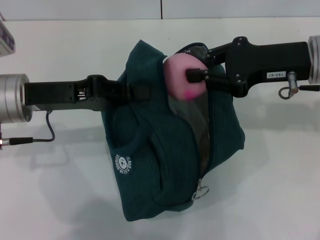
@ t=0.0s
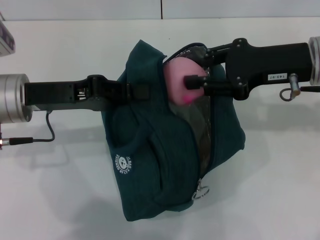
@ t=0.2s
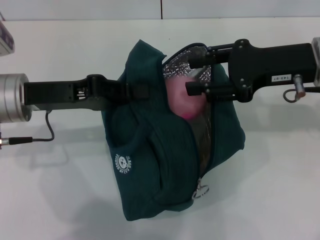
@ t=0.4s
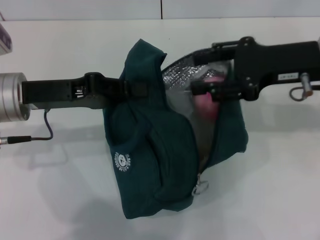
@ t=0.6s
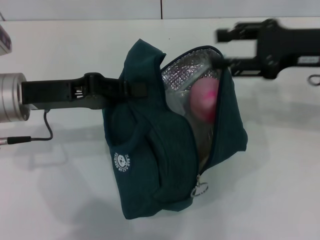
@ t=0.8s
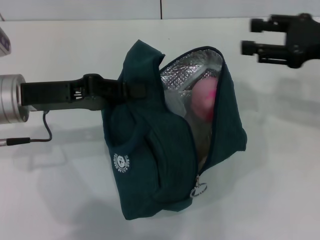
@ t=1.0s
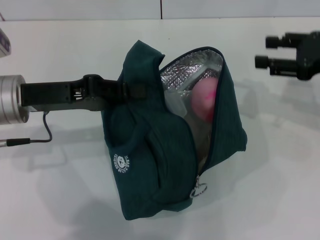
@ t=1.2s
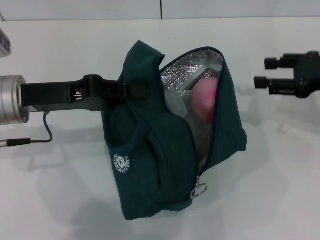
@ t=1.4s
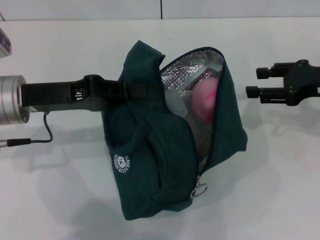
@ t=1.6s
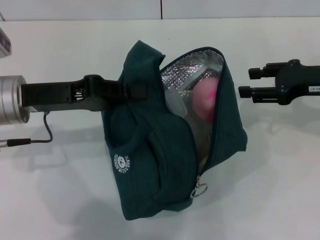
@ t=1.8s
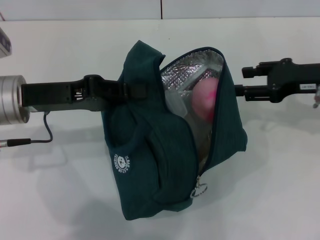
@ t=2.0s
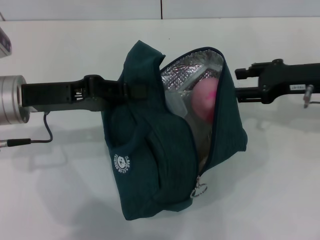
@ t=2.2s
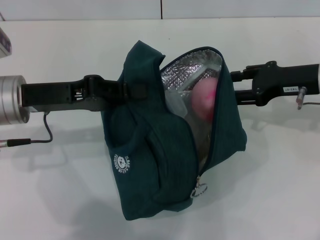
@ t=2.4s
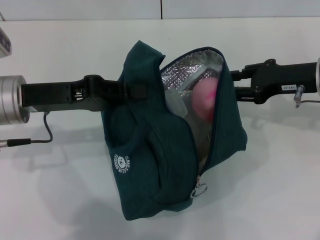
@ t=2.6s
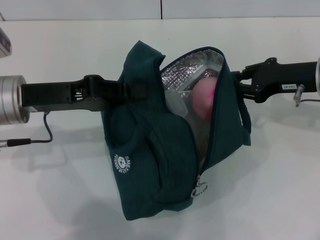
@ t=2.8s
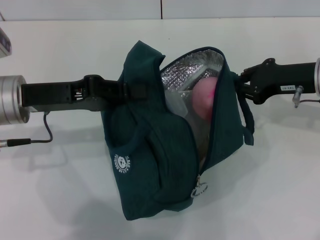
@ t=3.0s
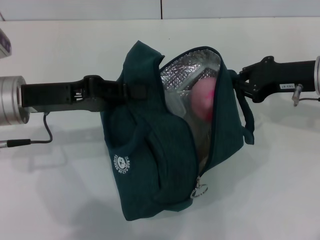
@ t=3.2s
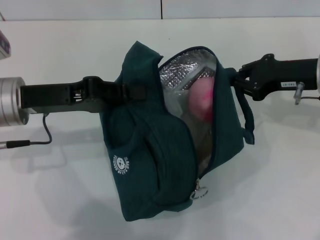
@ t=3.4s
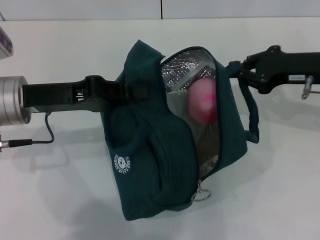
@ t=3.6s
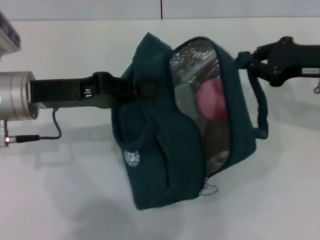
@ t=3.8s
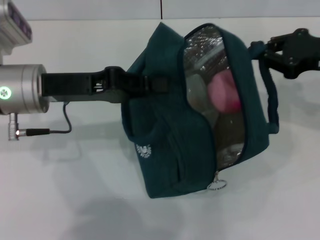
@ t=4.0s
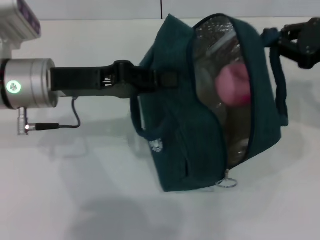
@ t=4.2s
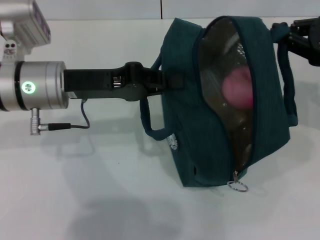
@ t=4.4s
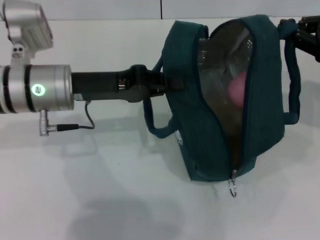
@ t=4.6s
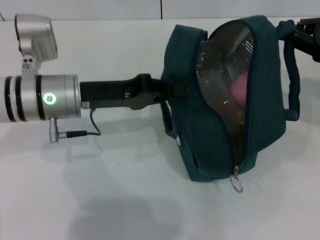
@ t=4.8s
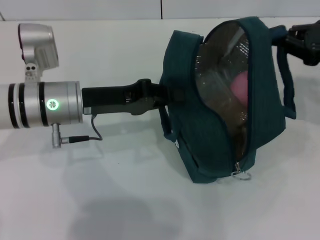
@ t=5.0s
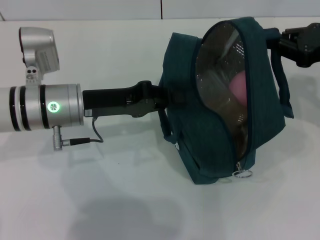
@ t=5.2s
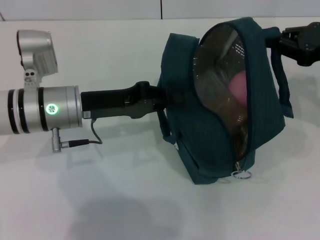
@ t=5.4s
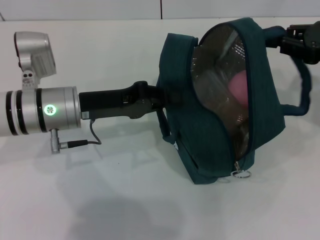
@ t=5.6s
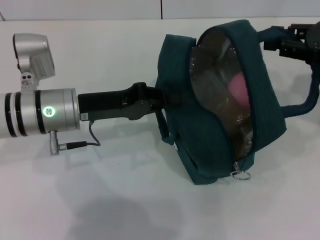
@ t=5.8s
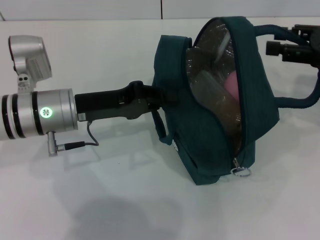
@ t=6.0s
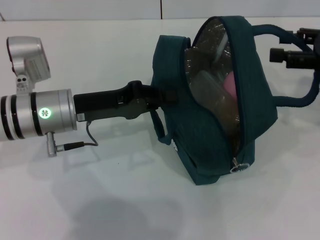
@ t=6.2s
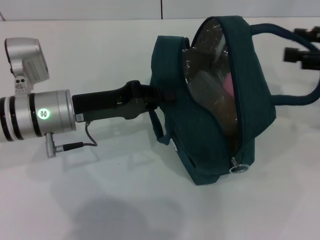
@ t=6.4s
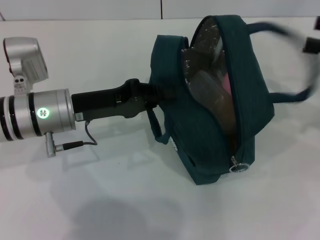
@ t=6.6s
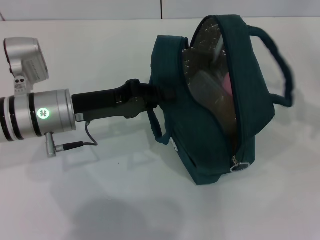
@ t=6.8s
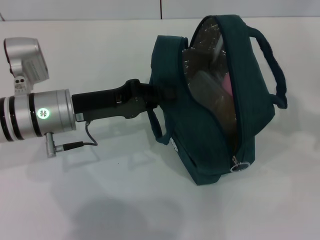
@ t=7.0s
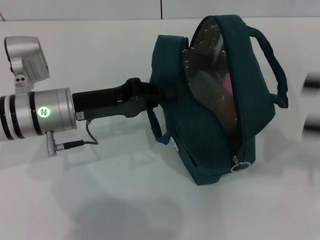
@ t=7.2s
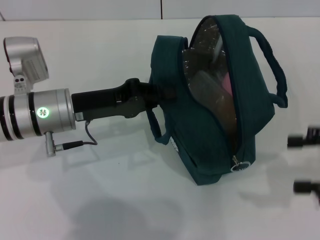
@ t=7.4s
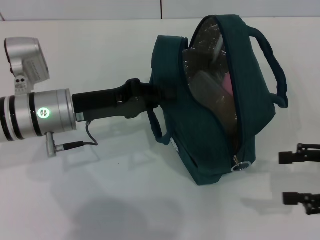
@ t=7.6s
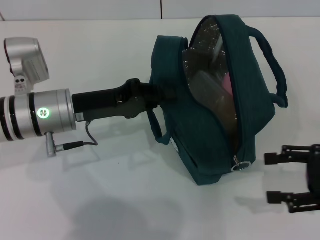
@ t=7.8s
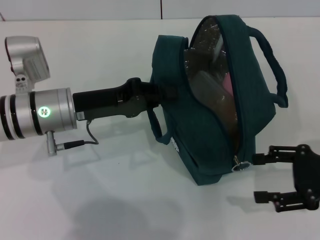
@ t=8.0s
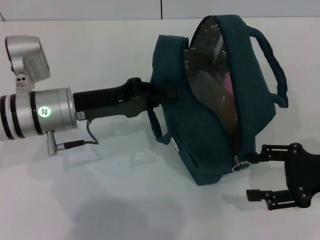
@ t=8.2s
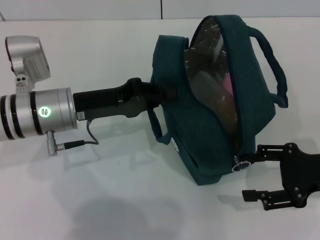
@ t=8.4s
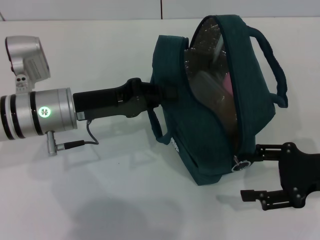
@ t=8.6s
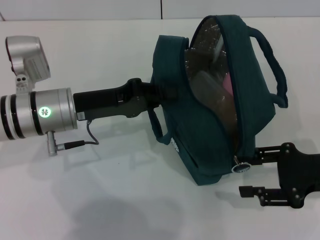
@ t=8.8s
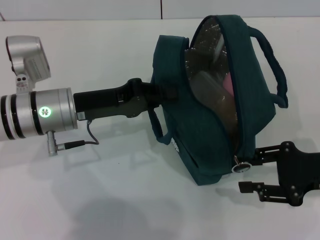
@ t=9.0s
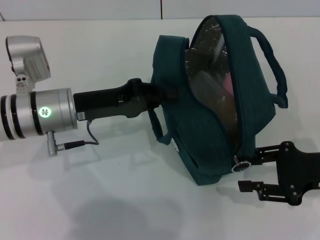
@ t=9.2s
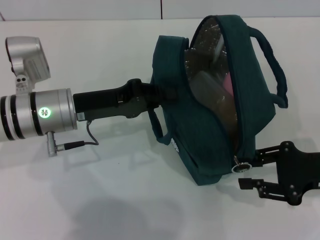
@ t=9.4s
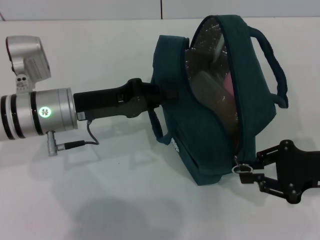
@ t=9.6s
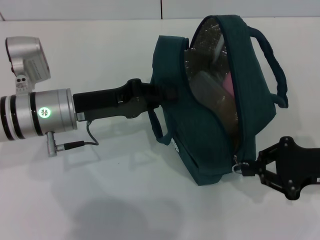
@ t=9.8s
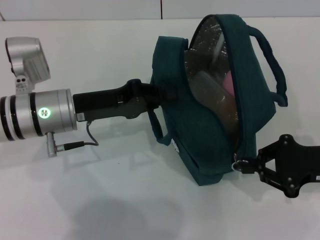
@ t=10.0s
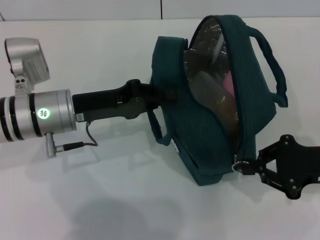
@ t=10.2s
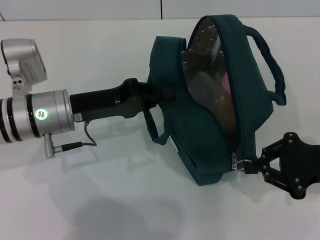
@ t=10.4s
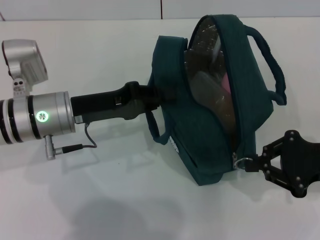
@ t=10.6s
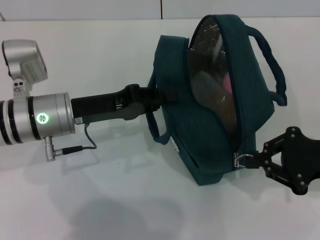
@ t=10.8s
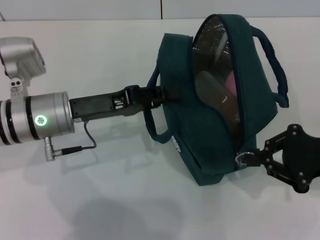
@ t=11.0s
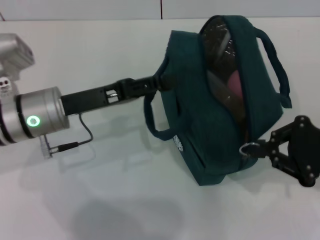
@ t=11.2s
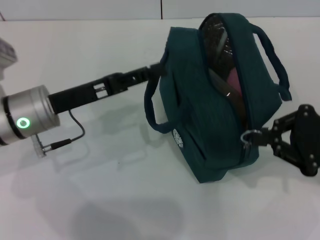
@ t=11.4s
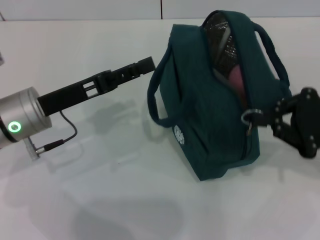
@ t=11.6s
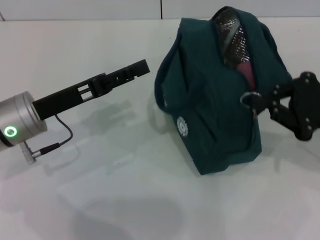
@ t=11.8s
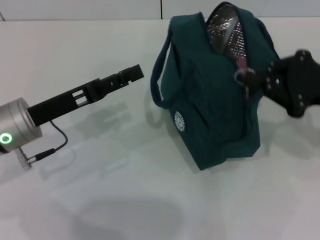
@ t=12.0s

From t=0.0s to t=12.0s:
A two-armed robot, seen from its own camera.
Step, from t=0.8s to t=6.4s: Hold the lunch bag with your right hand.
From t=0.0s to t=1.6s: The right gripper moves to the right, approximately 10 cm, and opens up.
From t=1.6s to t=3.0s: The right gripper ends up roughly 5 cm from where it was, and closes up.
From t=3.0s to t=4.4s: The right gripper goes roughly 10 cm to the right and upward, while the left gripper shifts by some 5 cm.
From t=6.0s to t=7.6s: The right gripper heads backward and downward, covering roughly 15 cm, and opens its fingers.
From t=7.6s to t=9.0s: The right gripper changes place by some 5 cm.
From t=9.0s to t=10.4s: The right gripper closes its fingers.
From t=10.4s to t=12.0s: The left gripper ends up some 5 cm from where it was, and opens, while the right gripper shifts some 5 cm upward.

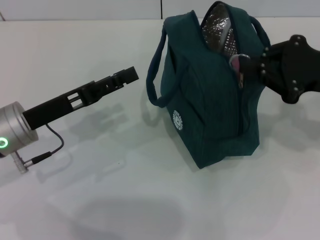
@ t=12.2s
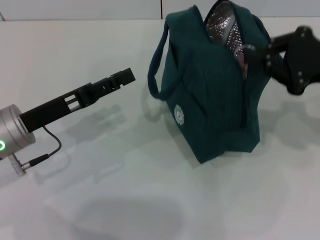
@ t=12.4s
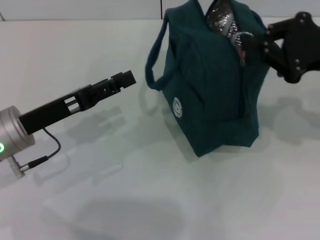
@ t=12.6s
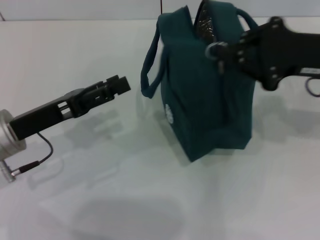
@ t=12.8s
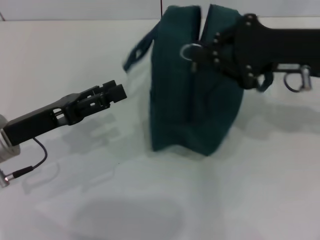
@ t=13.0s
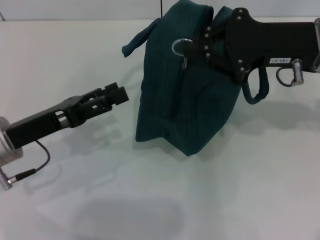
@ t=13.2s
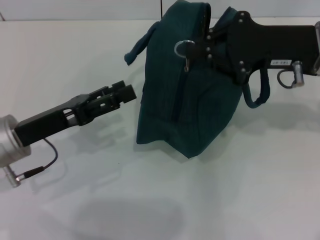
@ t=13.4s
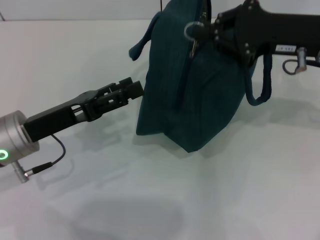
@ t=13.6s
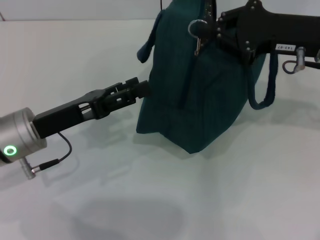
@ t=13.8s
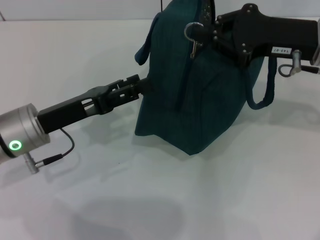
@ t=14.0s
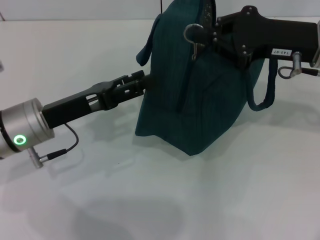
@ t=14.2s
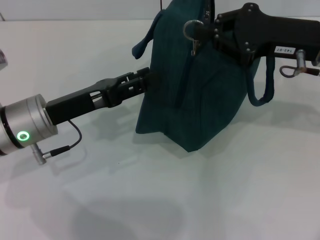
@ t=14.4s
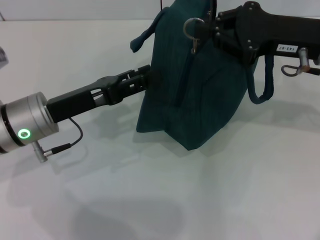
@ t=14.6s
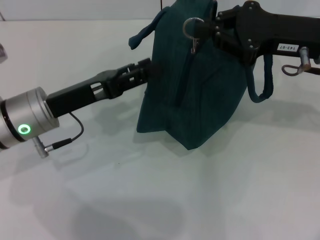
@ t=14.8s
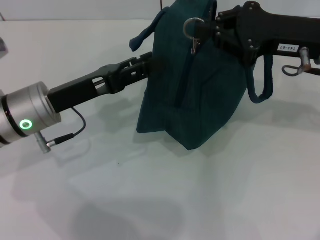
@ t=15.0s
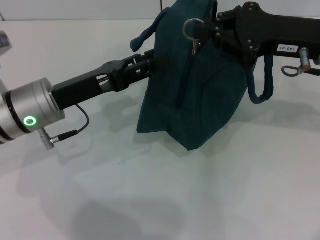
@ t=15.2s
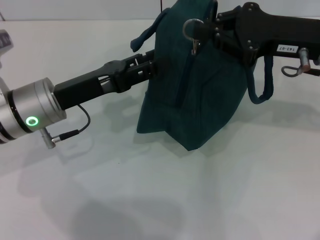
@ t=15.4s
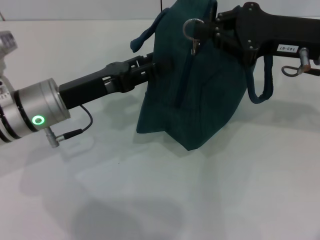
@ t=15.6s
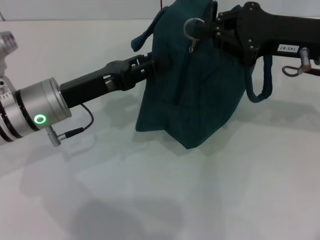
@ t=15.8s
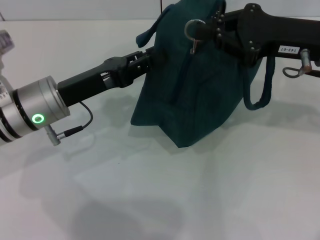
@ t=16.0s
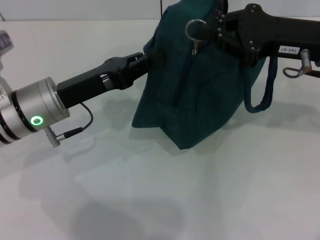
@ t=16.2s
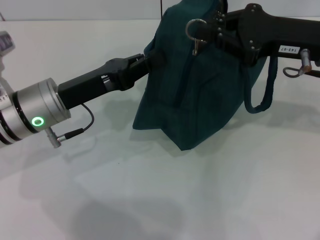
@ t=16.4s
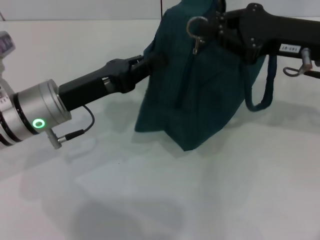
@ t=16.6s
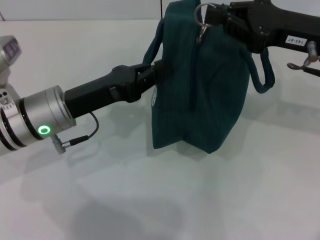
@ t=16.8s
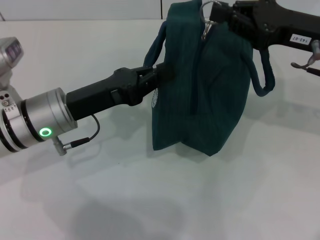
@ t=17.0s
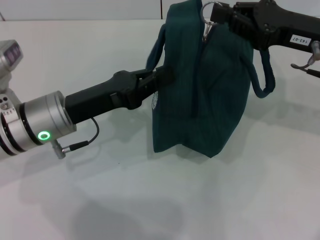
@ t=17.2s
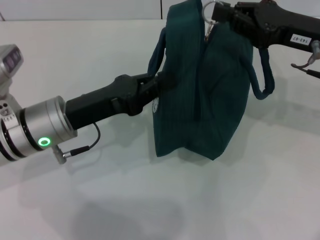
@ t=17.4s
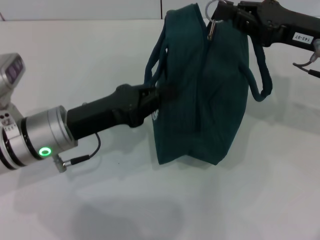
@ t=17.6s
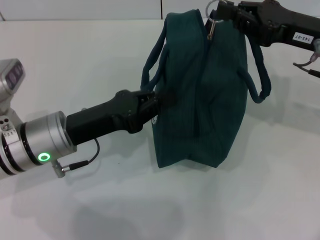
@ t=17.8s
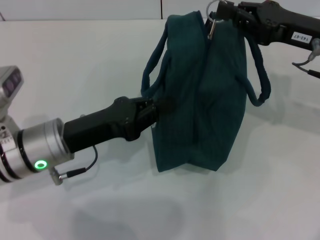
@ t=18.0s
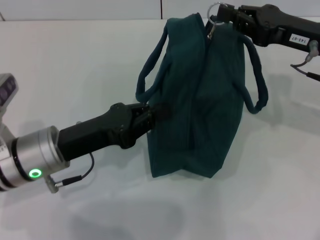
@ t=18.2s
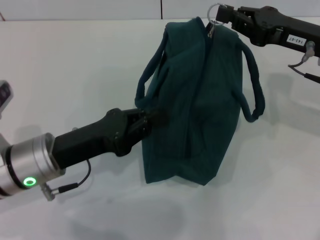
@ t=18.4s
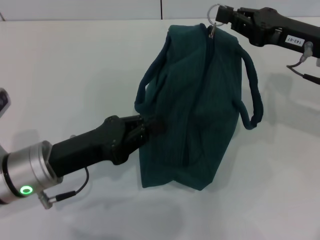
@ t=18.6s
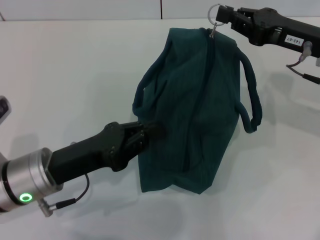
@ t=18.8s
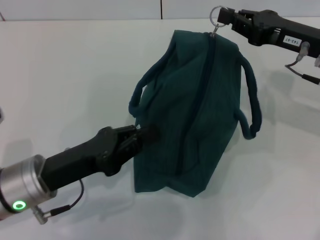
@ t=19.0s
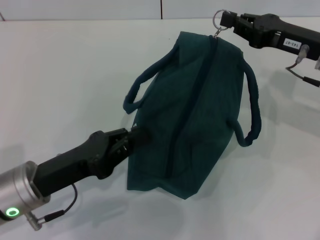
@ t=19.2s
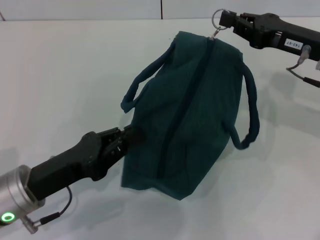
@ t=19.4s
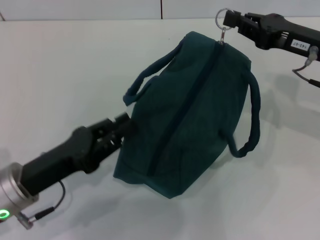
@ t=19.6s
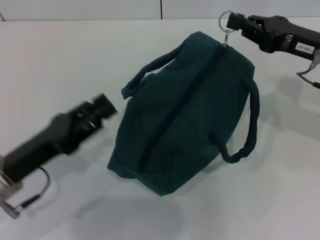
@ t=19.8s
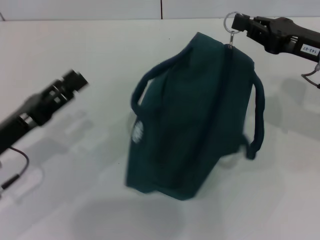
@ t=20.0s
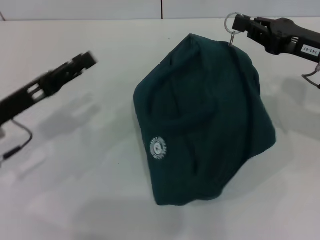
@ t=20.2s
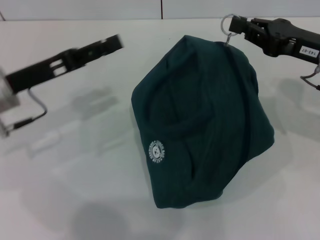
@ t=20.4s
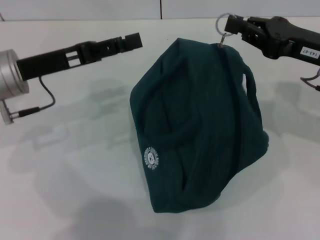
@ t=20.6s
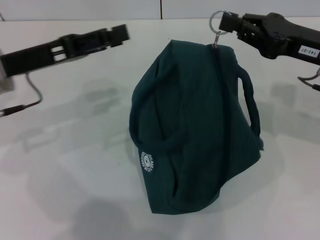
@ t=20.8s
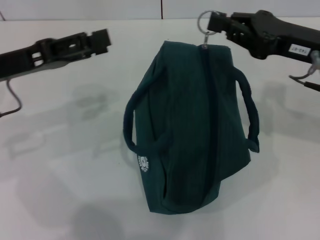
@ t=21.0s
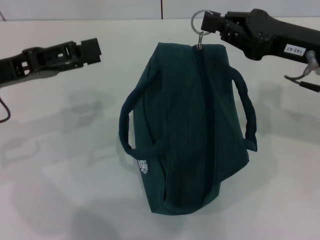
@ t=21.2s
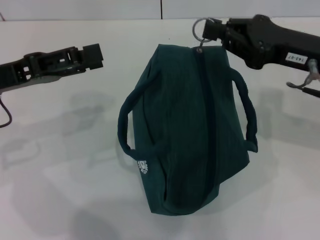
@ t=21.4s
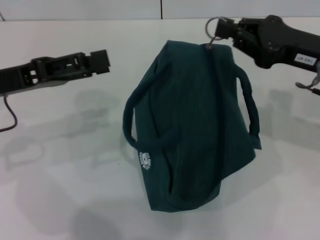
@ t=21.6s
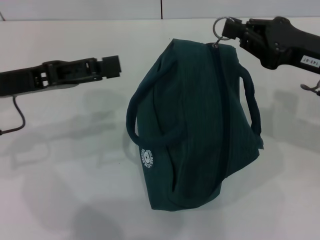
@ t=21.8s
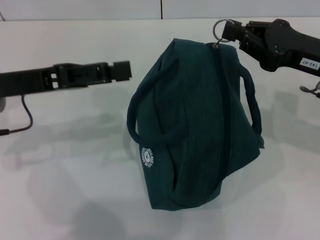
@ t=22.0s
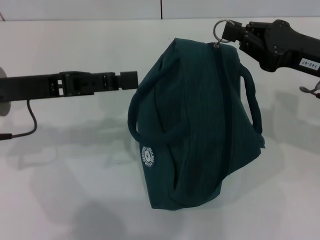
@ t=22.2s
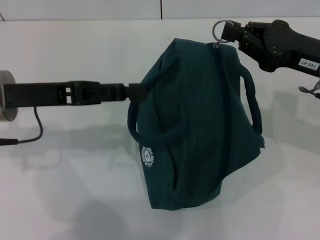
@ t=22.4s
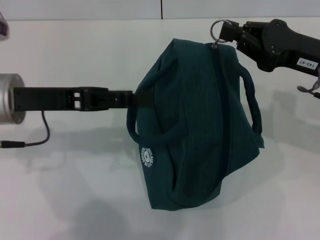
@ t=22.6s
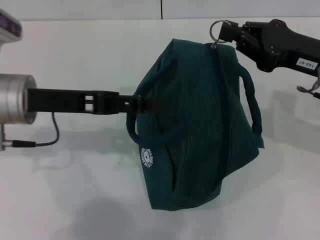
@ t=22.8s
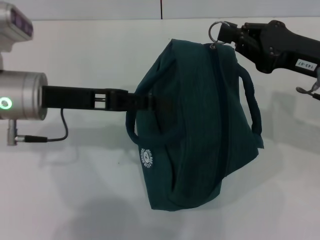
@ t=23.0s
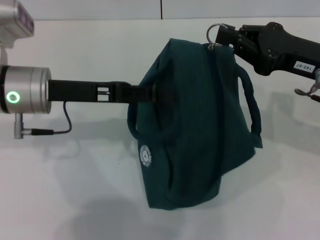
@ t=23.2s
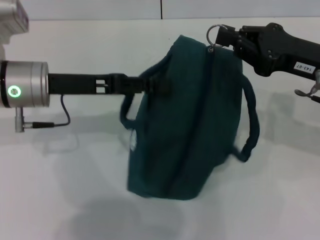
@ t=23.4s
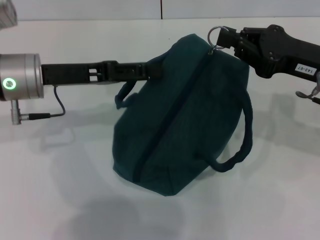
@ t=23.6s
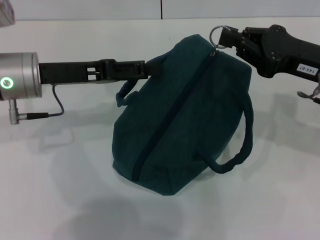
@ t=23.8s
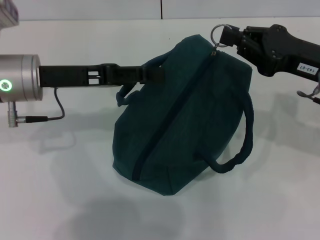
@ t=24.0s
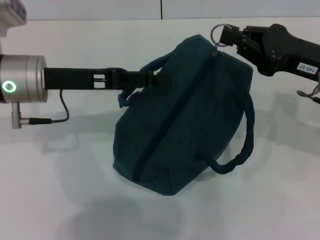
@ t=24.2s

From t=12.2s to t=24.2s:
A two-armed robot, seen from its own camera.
From t=12.2s to t=13.8s: The right gripper goes approximately 5 cm to the left.
From t=13.8s to t=15.2s: The grippers stay close to where they were, moving slightly.
From t=15.2s to t=16.6s: The left gripper closes.
From t=16.6s to t=18.2s: The left gripper shifts by some 5 cm.
From t=18.2s to t=19.8s: The left gripper shifts approximately 5 cm to the left.
From t=19.8s to t=21.2s: The left gripper goes roughly 15 cm upward and forward, and opens its fingers.
From t=21.2s to t=22.6s: The left gripper travels to the right by approximately 5 cm.
